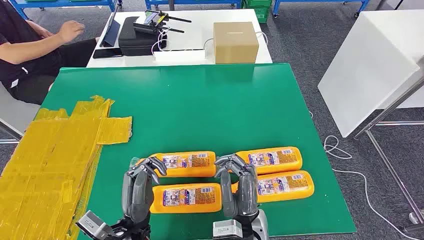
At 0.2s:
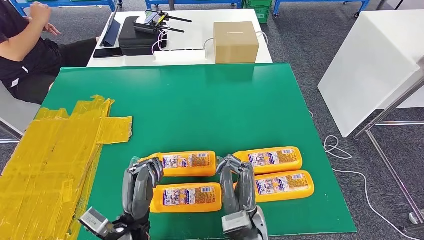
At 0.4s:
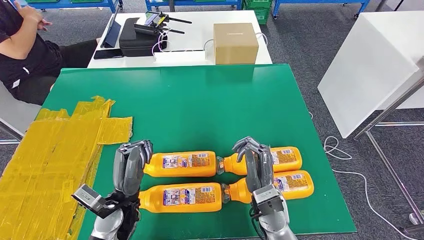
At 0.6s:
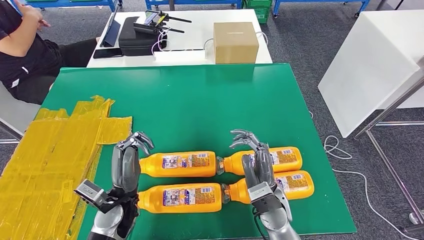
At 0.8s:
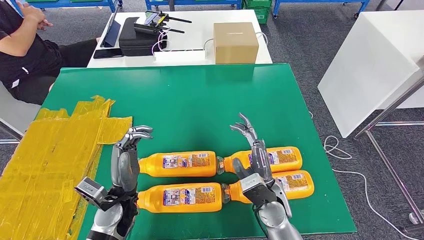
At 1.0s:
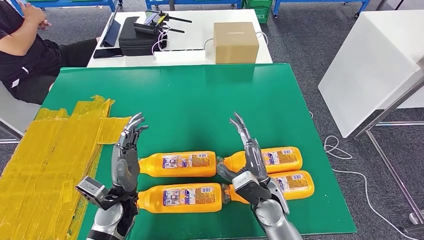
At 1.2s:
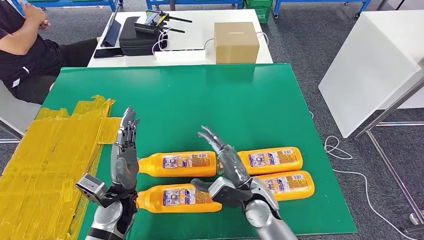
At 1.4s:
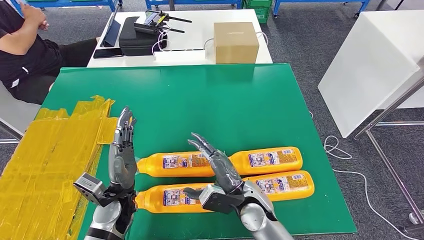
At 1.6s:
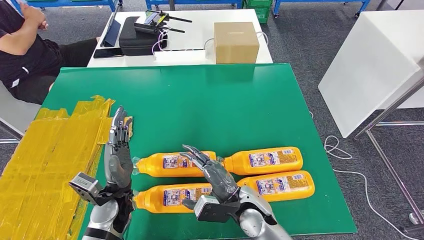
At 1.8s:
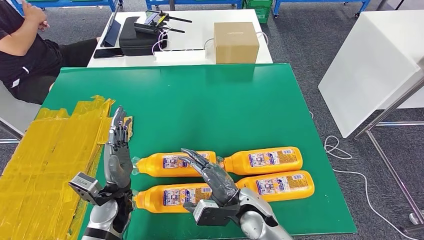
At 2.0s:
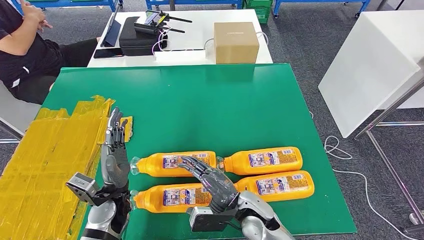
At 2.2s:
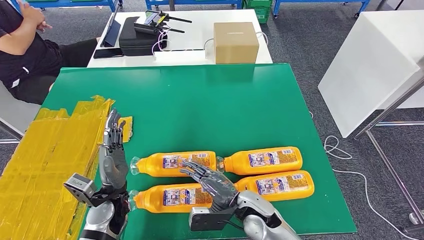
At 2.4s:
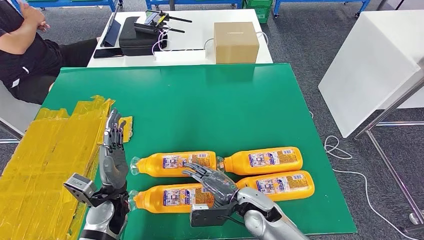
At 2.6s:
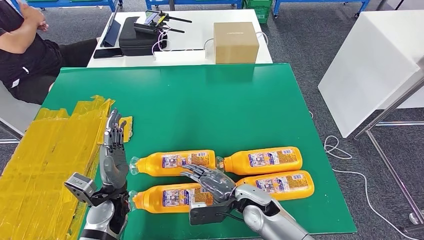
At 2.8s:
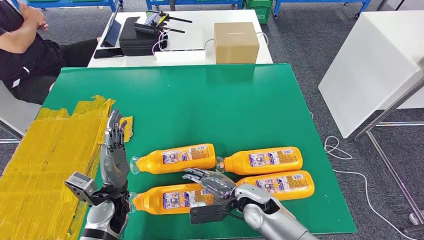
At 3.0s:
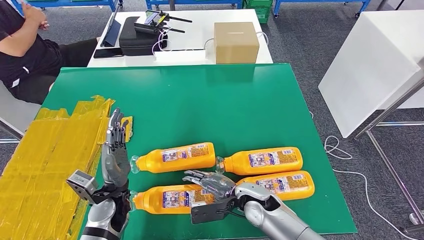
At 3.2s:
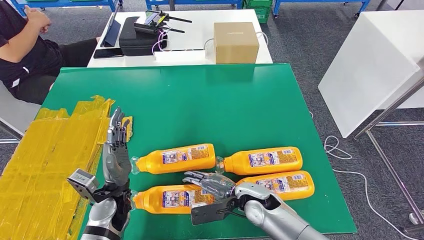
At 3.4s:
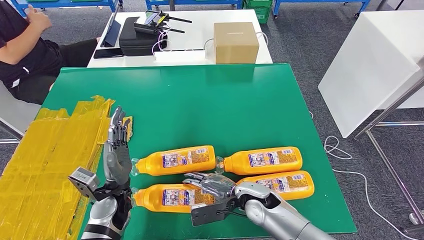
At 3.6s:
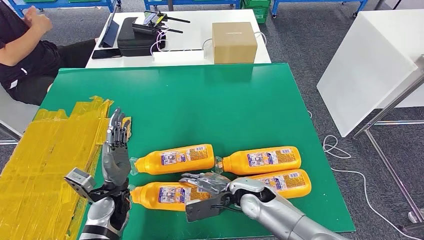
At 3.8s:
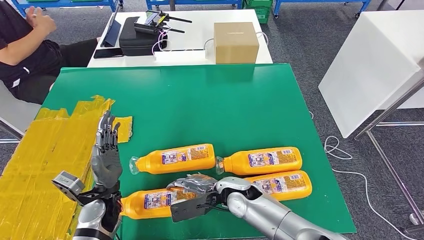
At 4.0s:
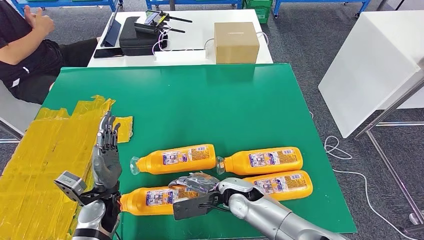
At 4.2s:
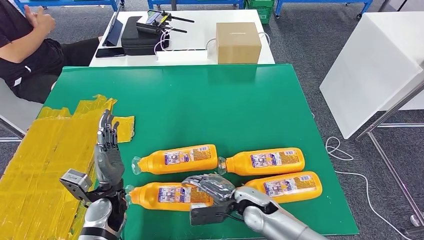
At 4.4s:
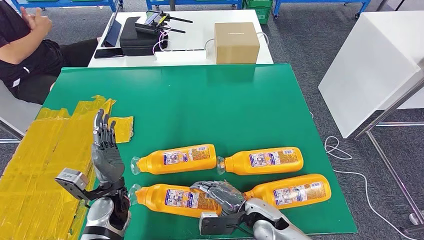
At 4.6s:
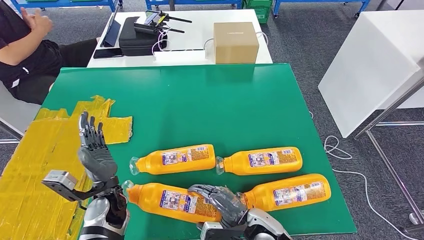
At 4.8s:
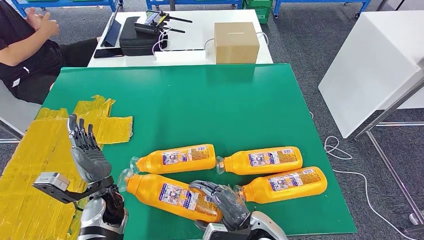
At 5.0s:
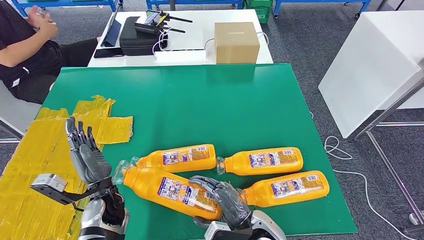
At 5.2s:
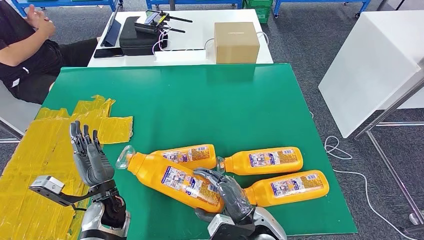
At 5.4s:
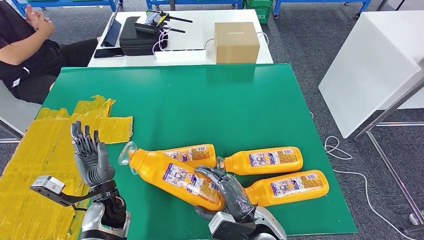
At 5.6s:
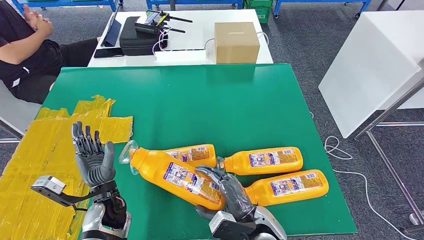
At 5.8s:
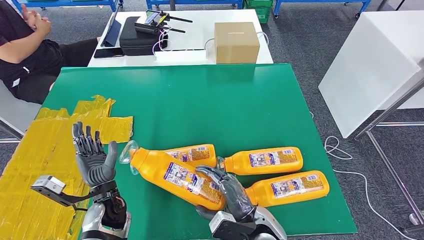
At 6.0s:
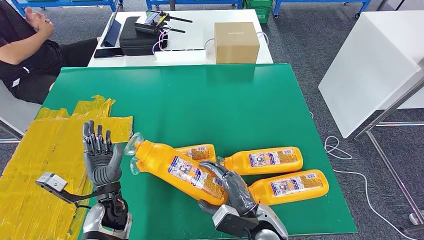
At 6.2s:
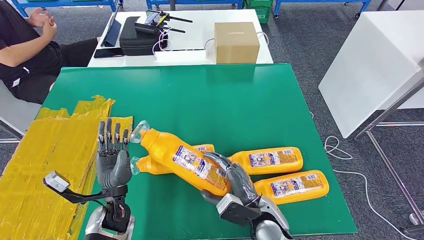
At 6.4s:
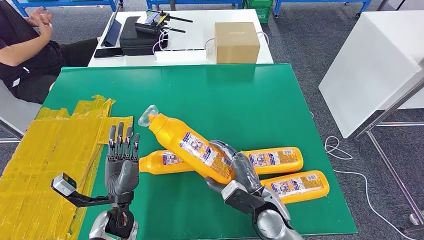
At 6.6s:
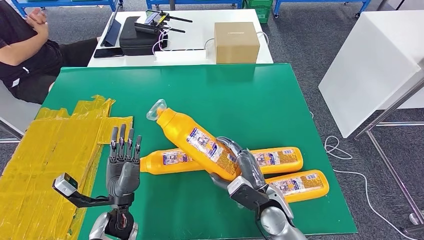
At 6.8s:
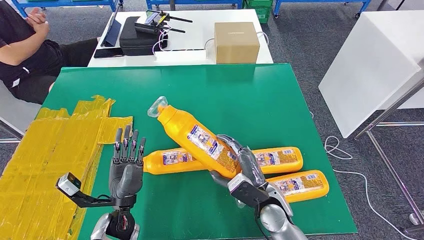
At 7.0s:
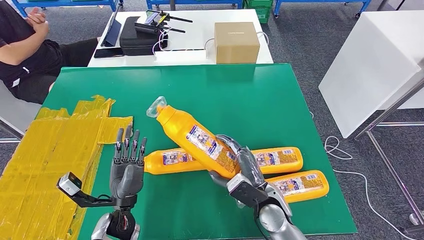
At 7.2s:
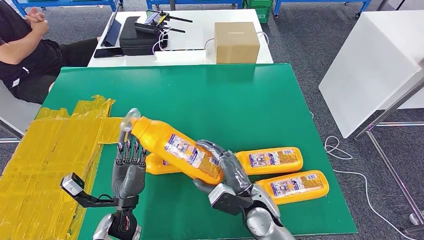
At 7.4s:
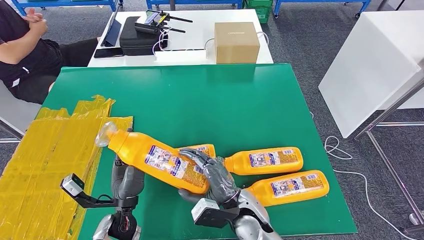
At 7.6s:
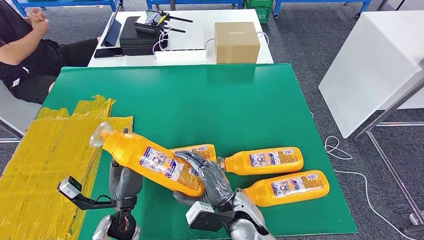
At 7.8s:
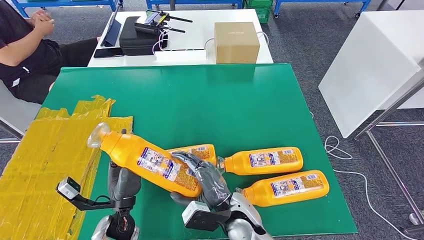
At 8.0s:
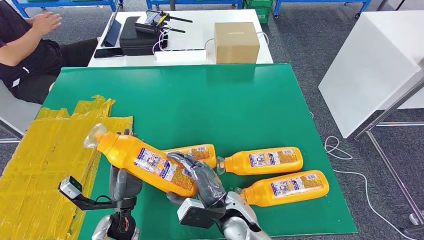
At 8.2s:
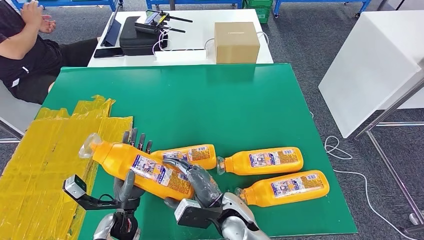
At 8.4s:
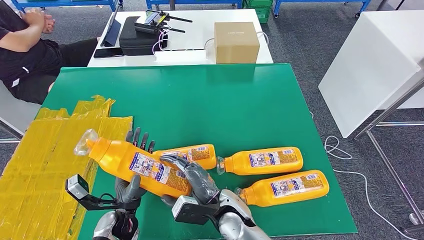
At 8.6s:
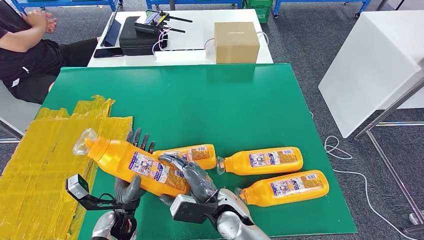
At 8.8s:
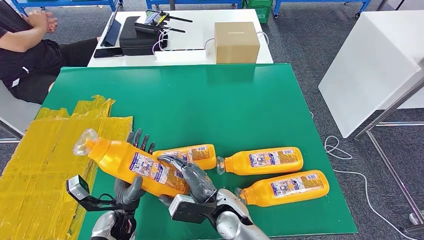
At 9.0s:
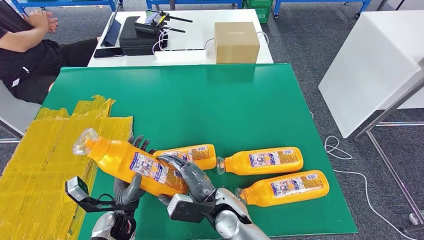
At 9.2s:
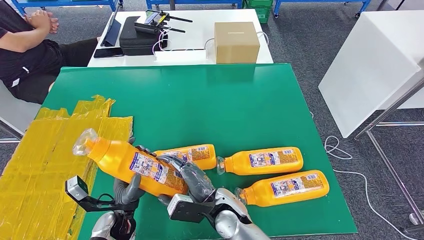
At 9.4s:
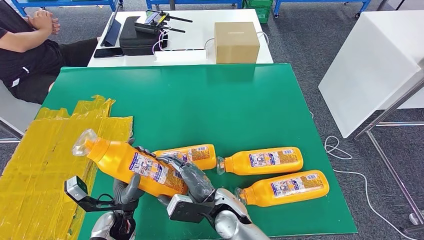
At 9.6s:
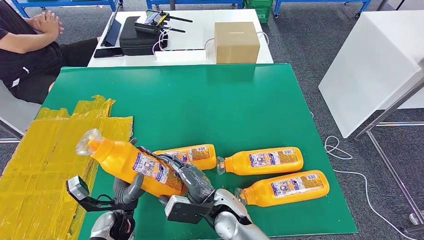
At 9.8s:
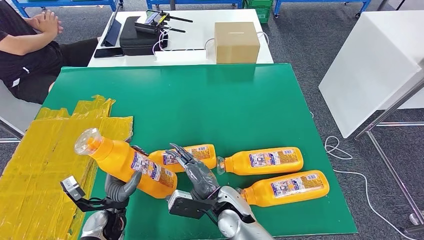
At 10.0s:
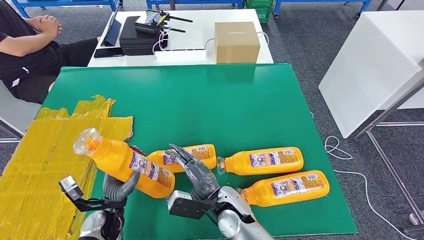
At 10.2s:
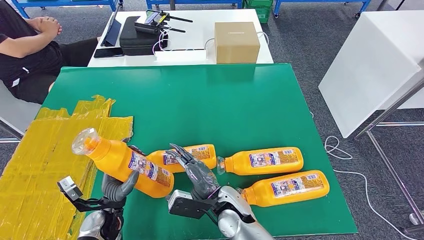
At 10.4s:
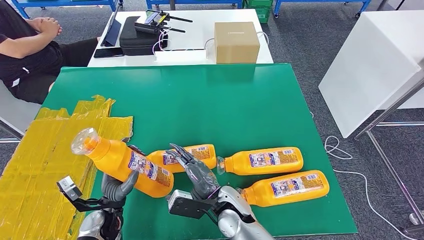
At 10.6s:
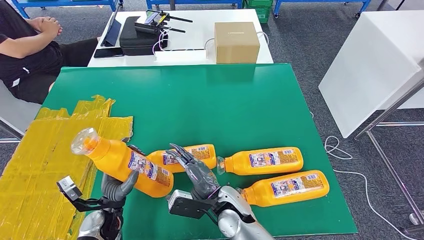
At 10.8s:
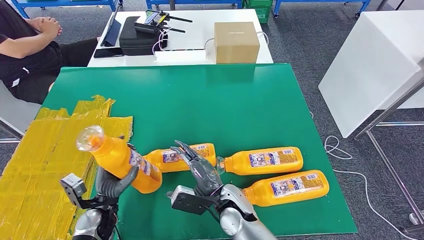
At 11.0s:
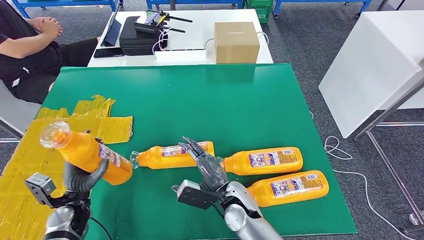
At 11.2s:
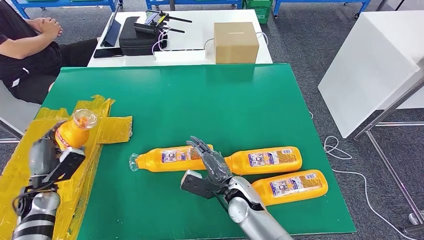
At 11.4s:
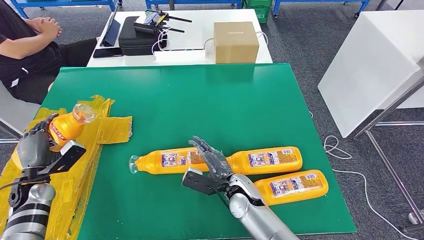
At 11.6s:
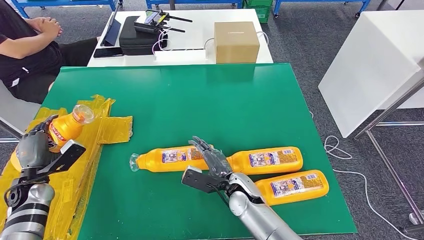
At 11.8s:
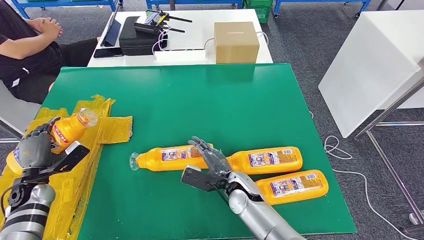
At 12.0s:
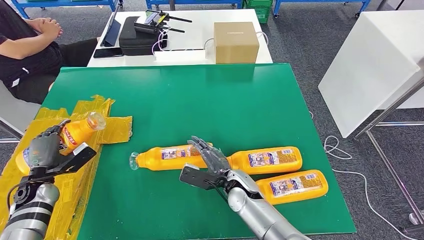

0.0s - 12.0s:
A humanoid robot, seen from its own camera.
Step, 0.0s - 7.6s: Take the fast-moving consumer goods bottle from the table.
3.0s - 4.4s: The right hand ends up approximately 5 cm from where it was.
6.0s - 7.6s: The right hand moves to the left, approximately 5 cm.
7.6s - 9.0s: The hands make only small movements.
9.0s - 10.4s: The hands move only a little.
10.4s - 12.0s: The left hand moves to the left, some 20 cm, while the right hand is displaced forward by approximately 5 cm.

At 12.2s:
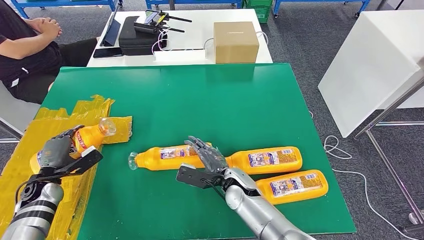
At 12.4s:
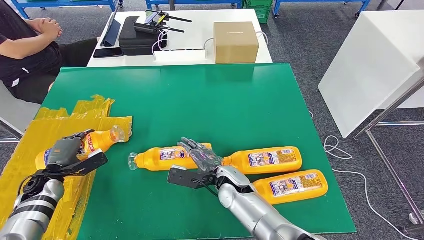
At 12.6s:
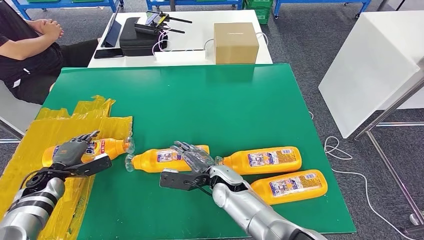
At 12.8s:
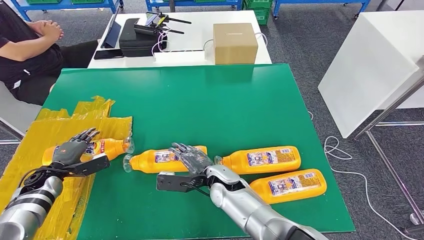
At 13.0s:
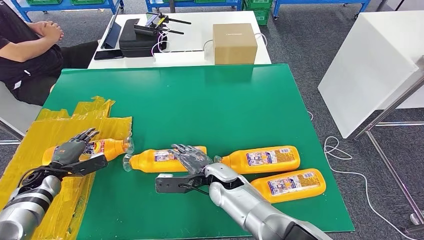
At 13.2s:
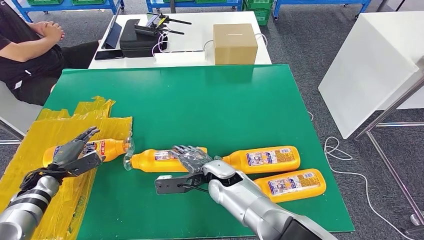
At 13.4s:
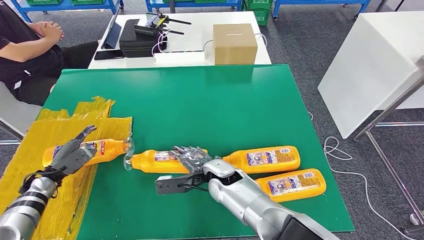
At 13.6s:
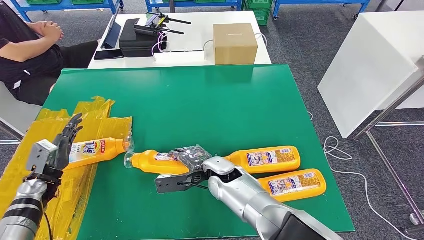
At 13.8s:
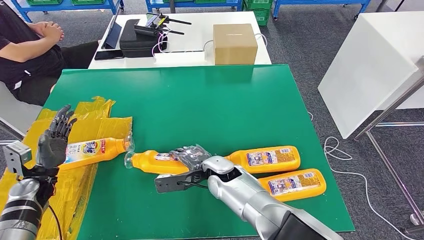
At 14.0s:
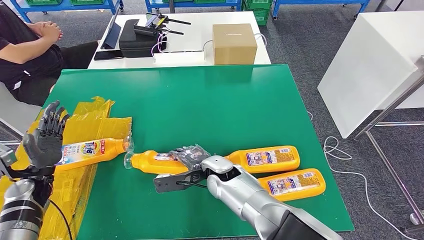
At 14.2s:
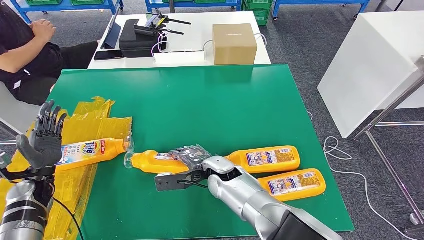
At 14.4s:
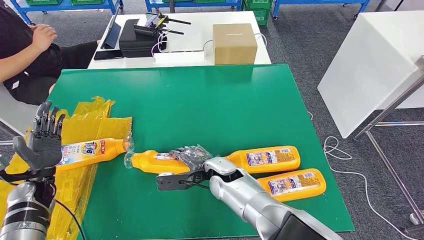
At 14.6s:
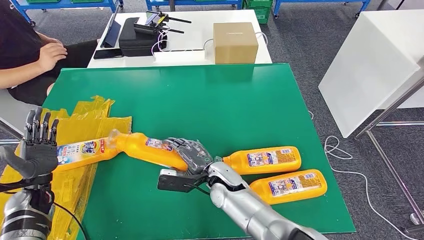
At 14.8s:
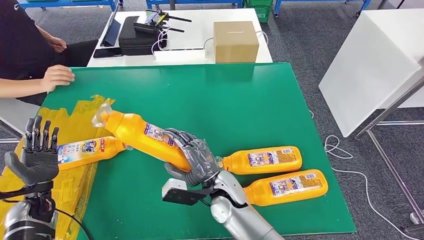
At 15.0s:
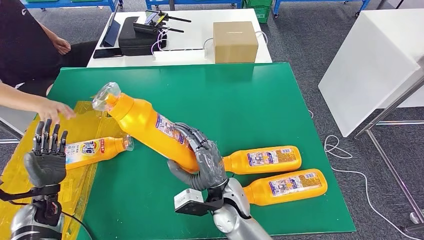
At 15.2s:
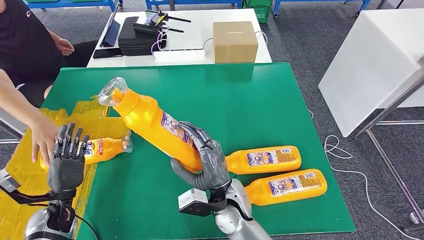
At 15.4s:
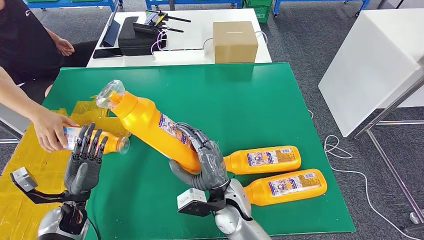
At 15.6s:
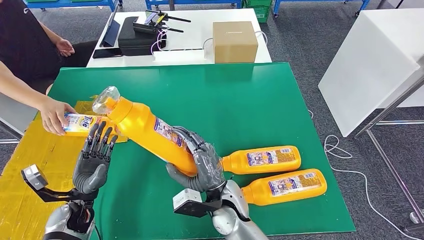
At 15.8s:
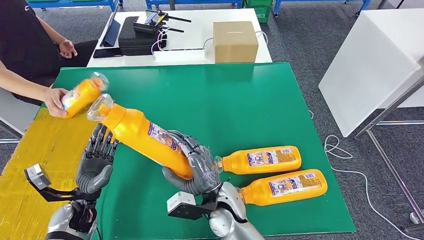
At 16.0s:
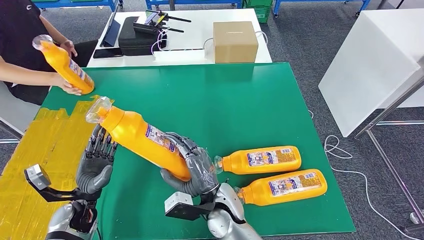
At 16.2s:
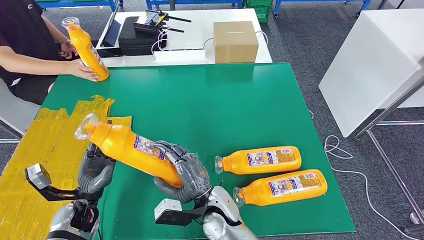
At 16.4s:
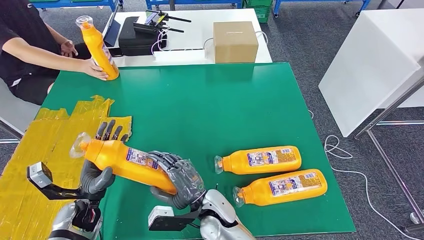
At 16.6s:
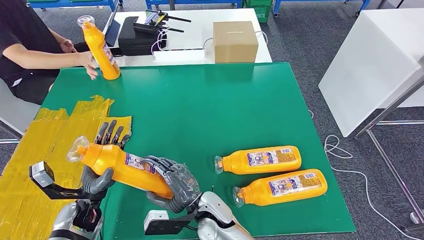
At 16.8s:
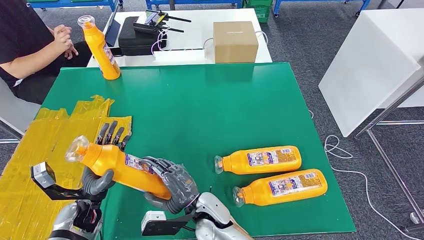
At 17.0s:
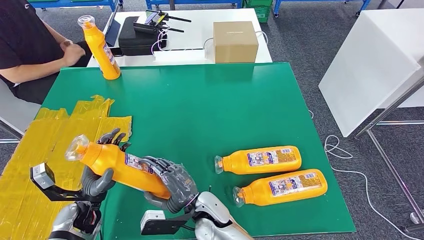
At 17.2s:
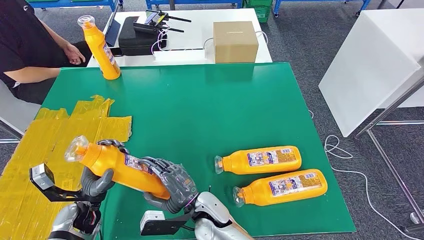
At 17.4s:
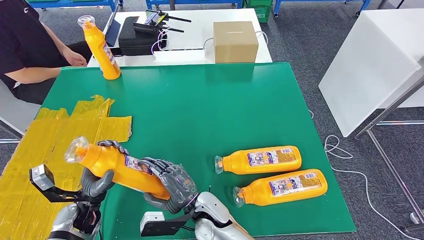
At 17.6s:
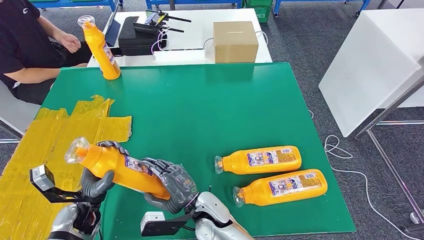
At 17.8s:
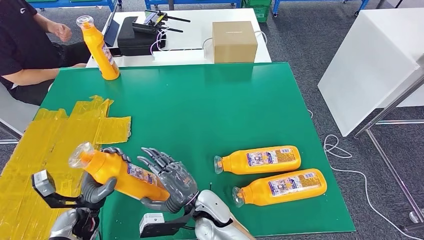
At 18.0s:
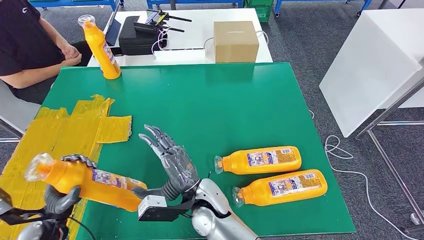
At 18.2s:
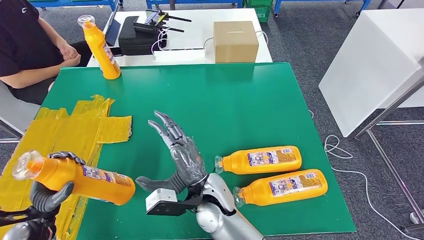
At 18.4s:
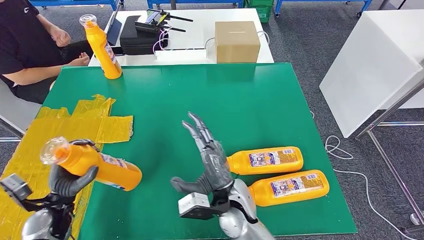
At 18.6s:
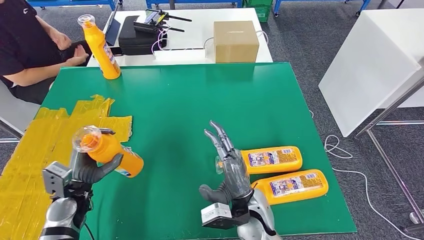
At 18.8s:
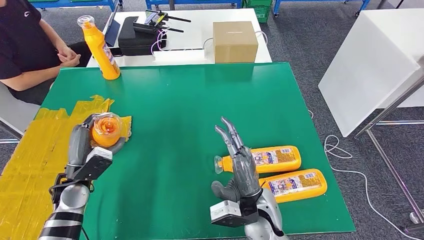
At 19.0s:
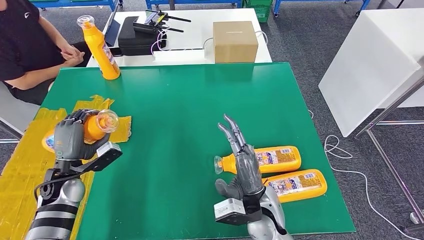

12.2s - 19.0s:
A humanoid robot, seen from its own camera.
Step, 13.2s - 16.8s: Pick up the fast-moving consumer goods bottle from the table.
16.2s - 17.6s: The hands make only small movements.
17.6s - 19.0s: The right hand shifts some 15 cm to the right and upward, while the left hand shifts some 10 cm forward, upward and to the left.
